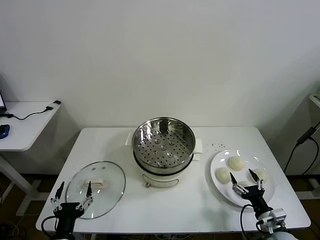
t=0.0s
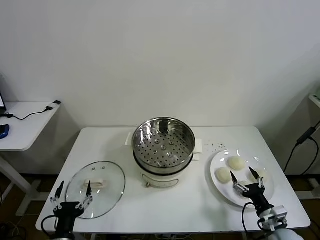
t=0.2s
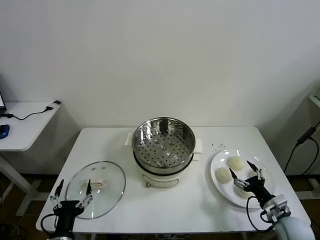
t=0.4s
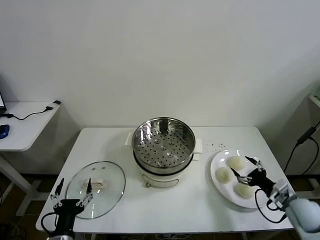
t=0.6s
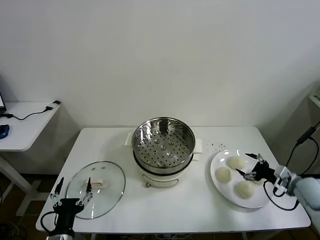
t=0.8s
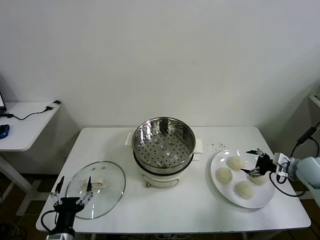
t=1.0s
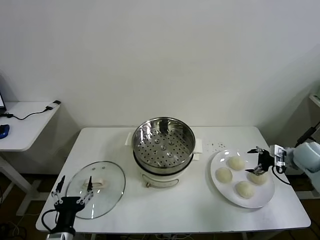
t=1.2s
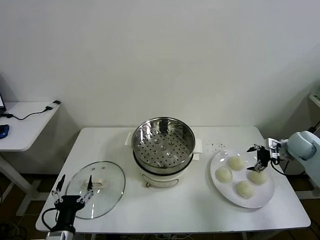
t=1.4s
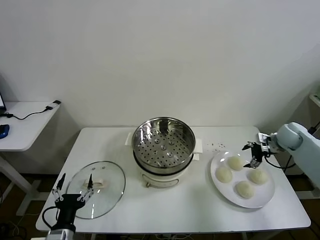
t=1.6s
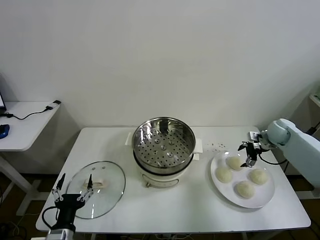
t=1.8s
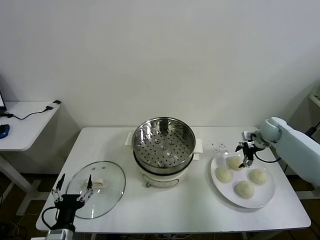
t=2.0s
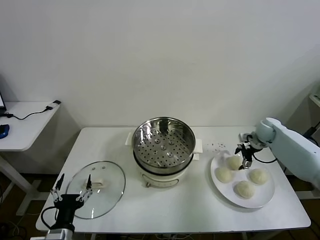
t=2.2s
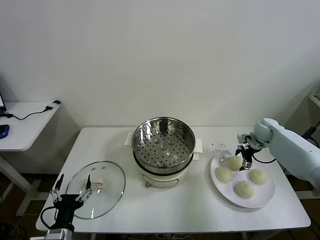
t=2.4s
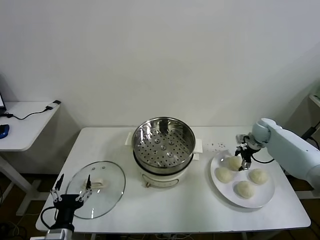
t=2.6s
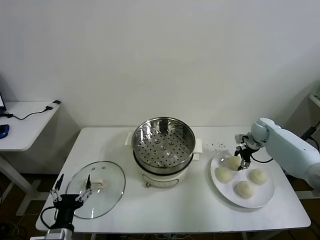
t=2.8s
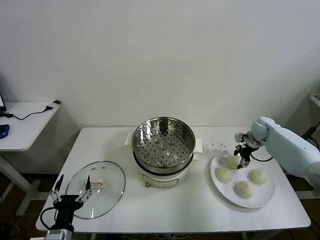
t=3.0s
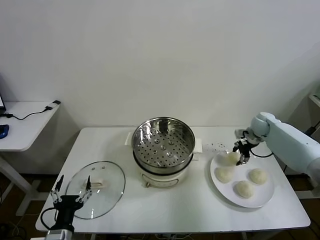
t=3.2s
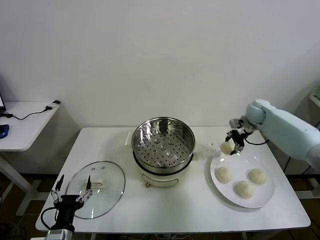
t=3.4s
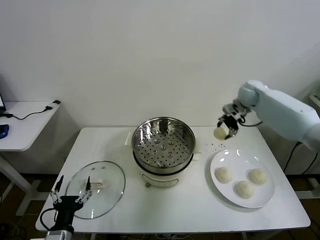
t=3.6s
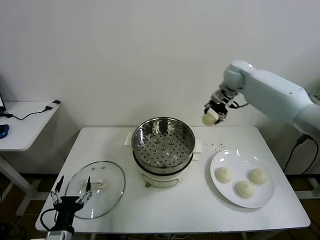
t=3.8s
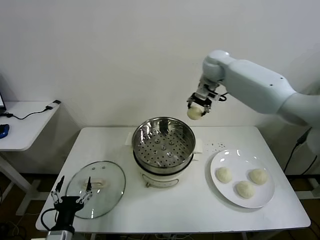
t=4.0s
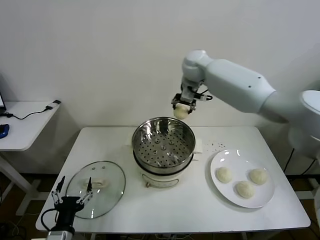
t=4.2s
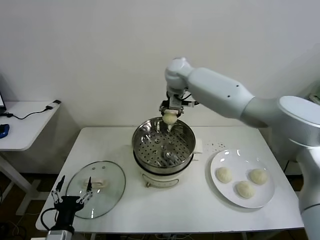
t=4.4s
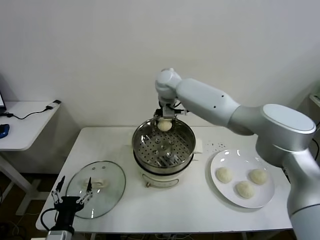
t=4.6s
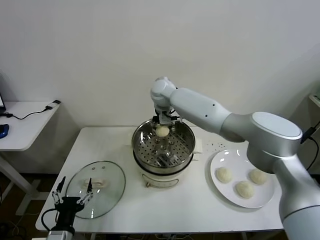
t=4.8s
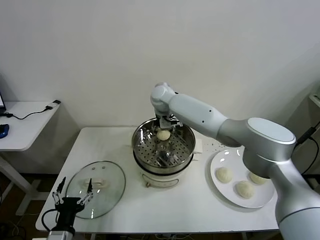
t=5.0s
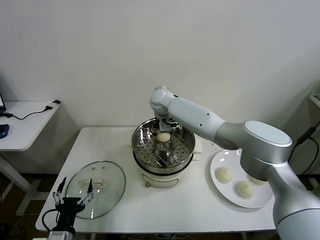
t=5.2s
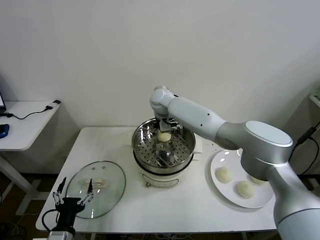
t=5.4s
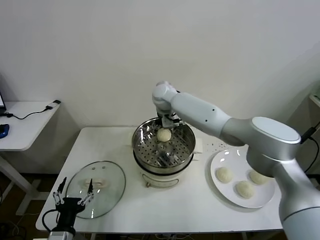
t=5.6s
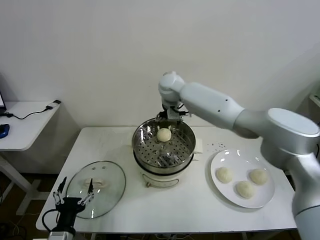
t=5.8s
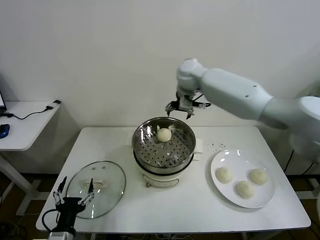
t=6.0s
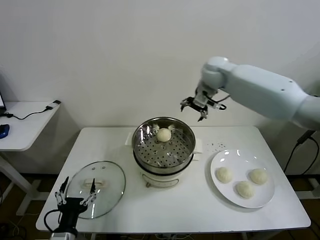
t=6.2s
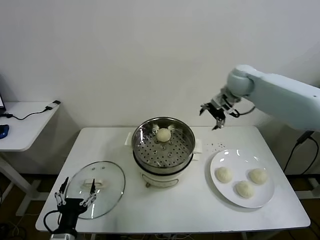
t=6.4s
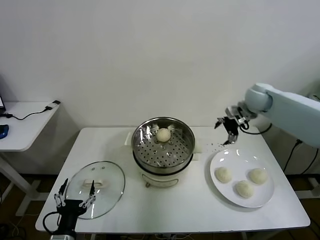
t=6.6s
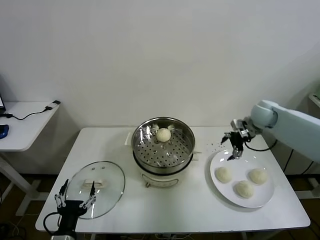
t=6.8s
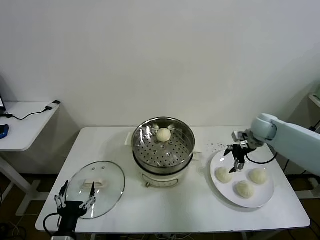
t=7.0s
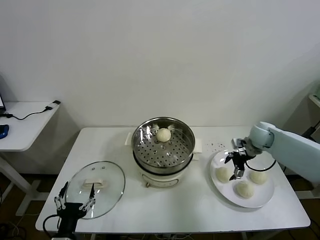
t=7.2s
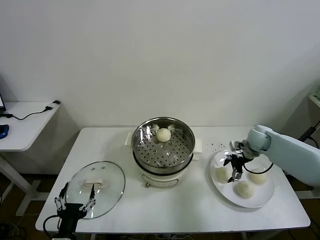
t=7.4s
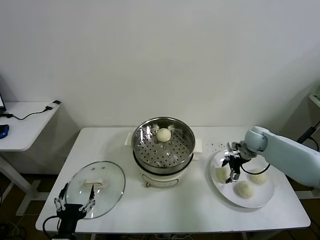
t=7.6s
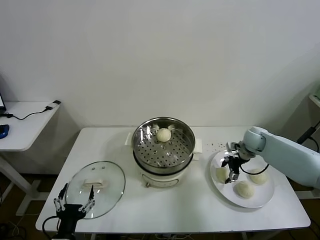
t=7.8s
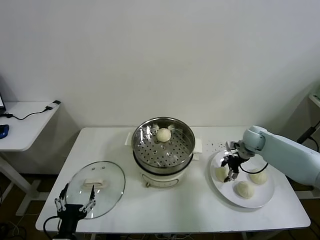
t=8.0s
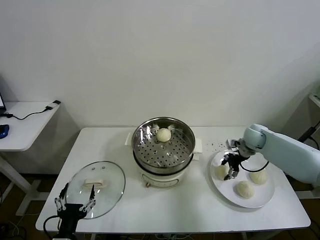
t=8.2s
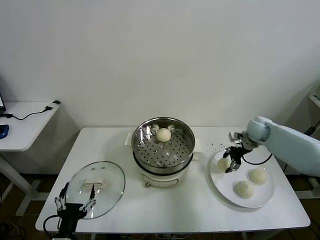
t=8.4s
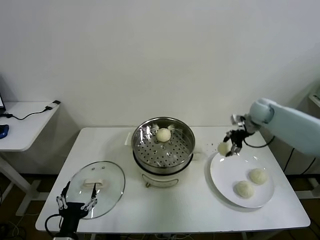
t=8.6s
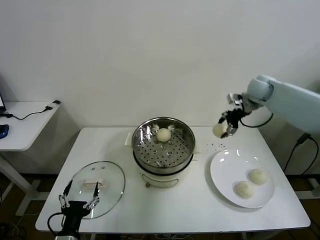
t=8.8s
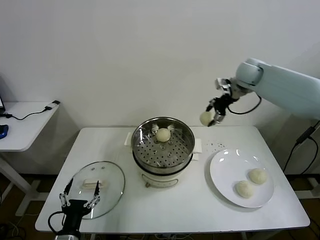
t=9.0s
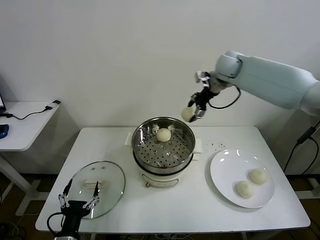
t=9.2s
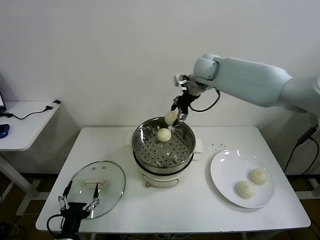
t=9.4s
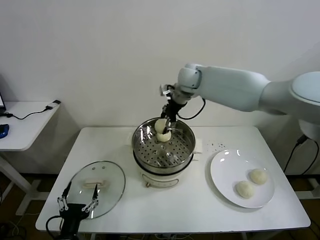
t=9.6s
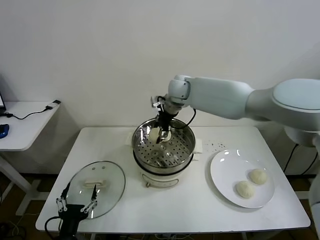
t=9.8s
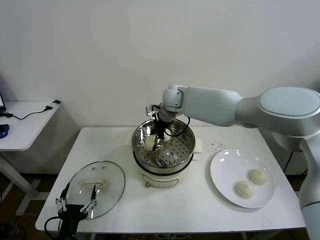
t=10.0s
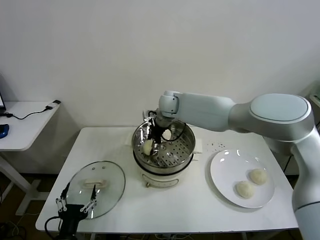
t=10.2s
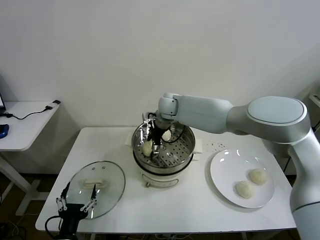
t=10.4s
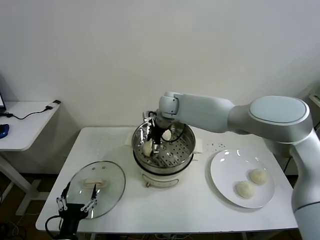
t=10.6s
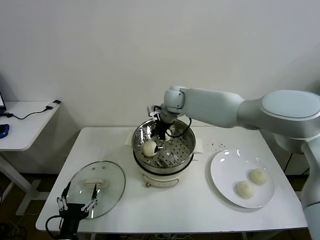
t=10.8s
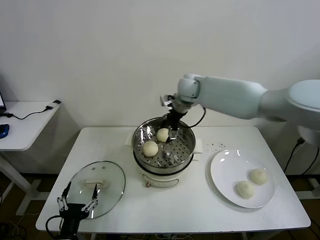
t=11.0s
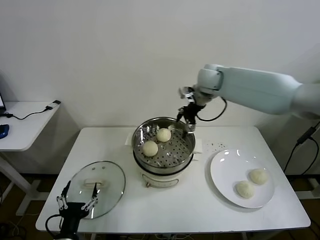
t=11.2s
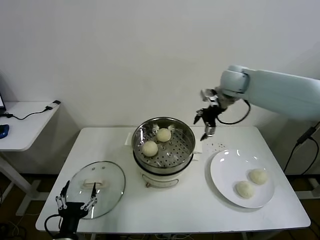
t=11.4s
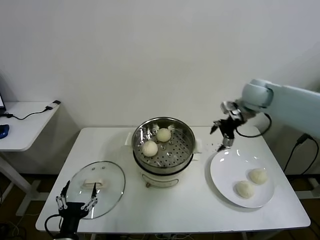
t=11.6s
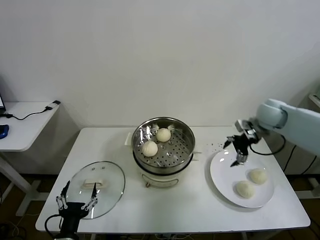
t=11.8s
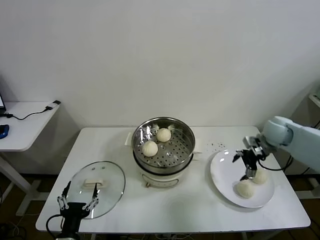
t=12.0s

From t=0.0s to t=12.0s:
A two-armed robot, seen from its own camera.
Task of the whole recording: take steamed baozi put them in steamer then cover it.
Step, from t=0.0s to t=3.0s: Grasp the baozi in the plate with right gripper.
Step, from t=3.2s to t=5.6s: Place the baozi on the steamer with right gripper.
Step, from t=5.8s to t=8.2s: Grasp the baozi in the plate with right gripper.
Step, from t=8.4s to t=10.8s: Place the baozi on the steamer with right gripper.
From t=1.6s to t=3.0s: The right gripper goes roughly 5 cm forward, and closes its fingers.
From t=3.0s to t=4.4s: The right gripper goes approximately 40 cm to the left and upward.
From t=4.4s to t=6.0s: The right gripper moves to the right, approximately 10 cm, and opens up.
From t=6.0s to t=7.6s: The right gripper moves downward and to the right, some 35 cm.
From t=7.6s to t=9.0s: The right gripper is displaced upward by about 25 cm, and closes up.
From t=9.0s to t=10.4s: The right gripper is displaced to the left and downward by approximately 30 cm, and opens its fingers.
From t=10.4s to t=12.0s: The right gripper moves to the right, about 40 cm.

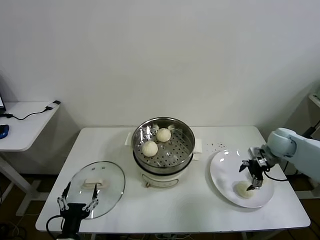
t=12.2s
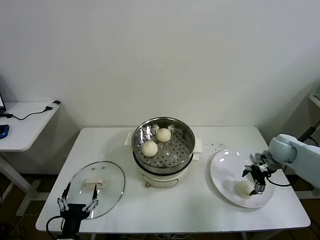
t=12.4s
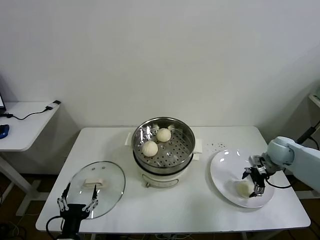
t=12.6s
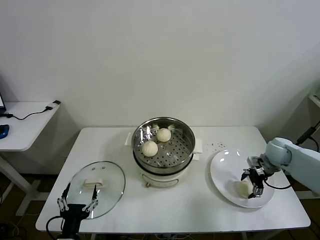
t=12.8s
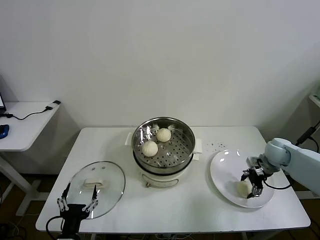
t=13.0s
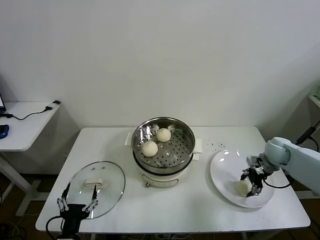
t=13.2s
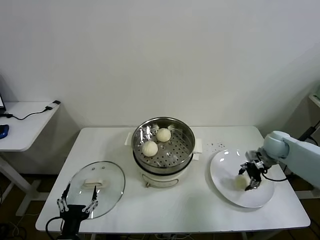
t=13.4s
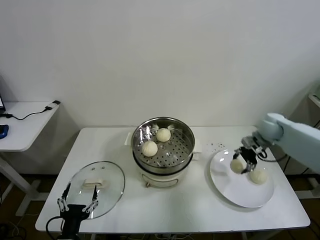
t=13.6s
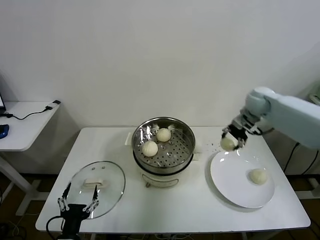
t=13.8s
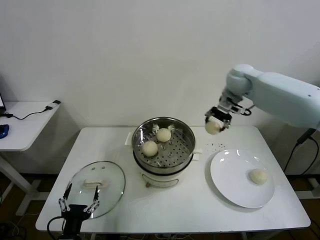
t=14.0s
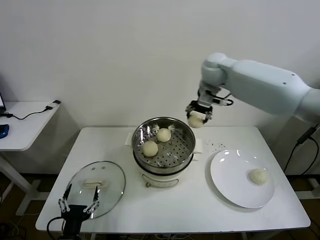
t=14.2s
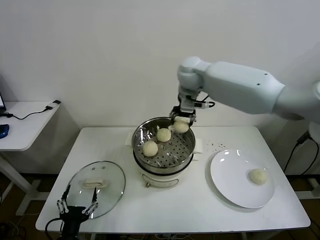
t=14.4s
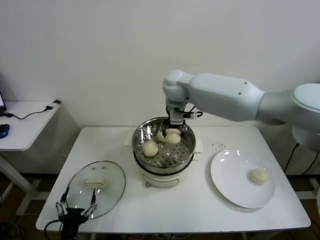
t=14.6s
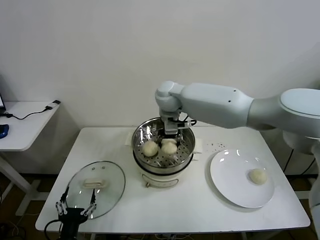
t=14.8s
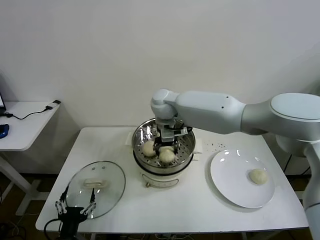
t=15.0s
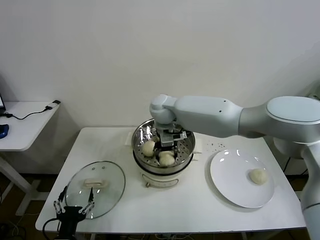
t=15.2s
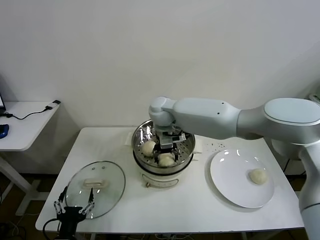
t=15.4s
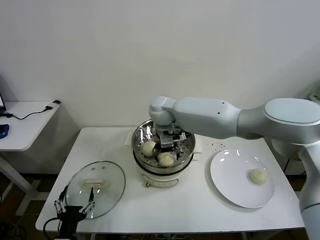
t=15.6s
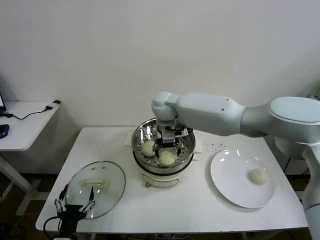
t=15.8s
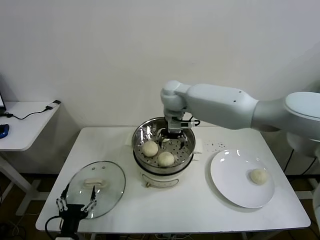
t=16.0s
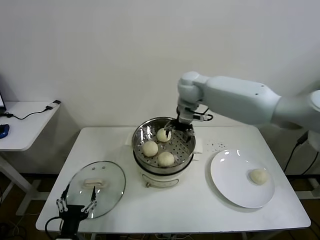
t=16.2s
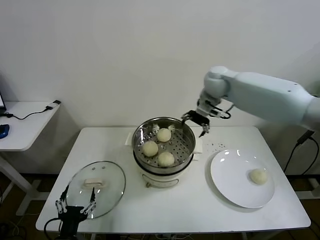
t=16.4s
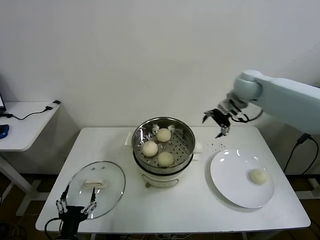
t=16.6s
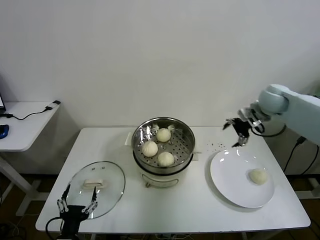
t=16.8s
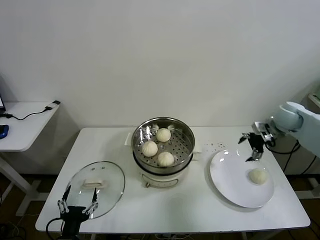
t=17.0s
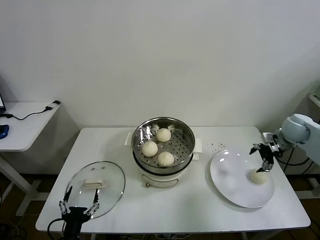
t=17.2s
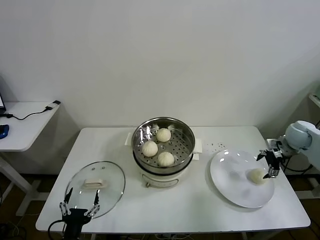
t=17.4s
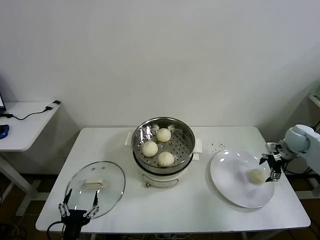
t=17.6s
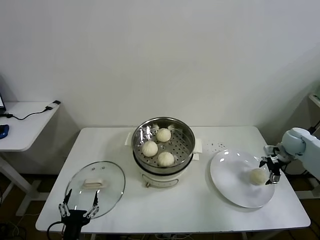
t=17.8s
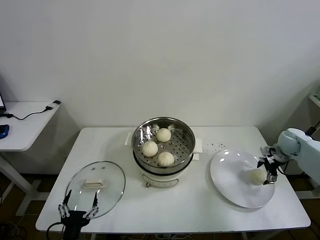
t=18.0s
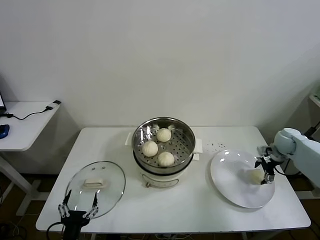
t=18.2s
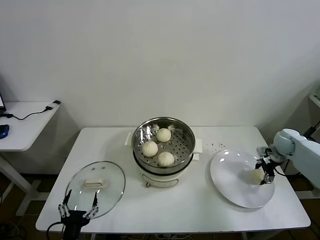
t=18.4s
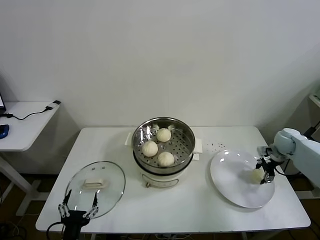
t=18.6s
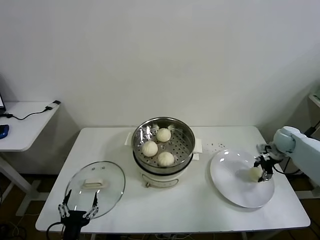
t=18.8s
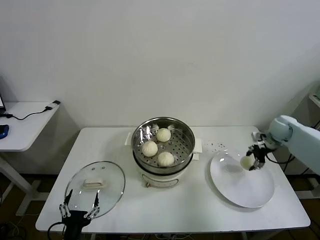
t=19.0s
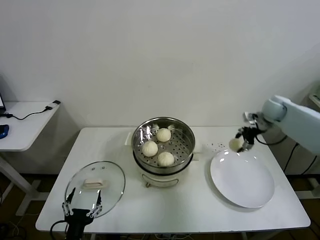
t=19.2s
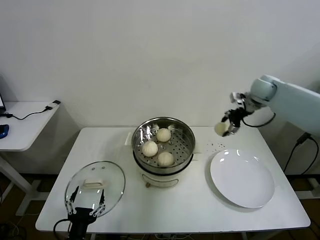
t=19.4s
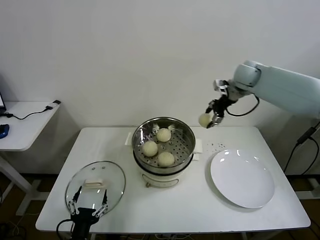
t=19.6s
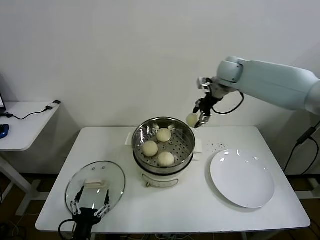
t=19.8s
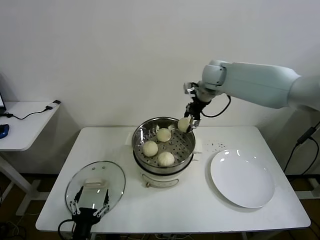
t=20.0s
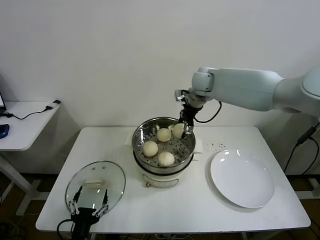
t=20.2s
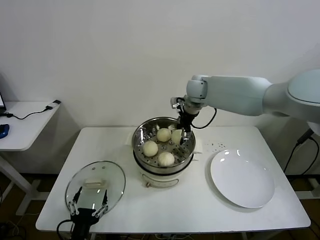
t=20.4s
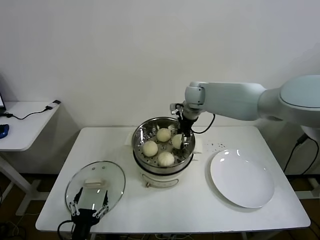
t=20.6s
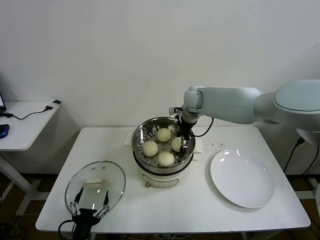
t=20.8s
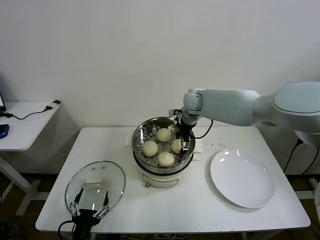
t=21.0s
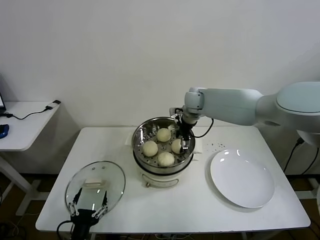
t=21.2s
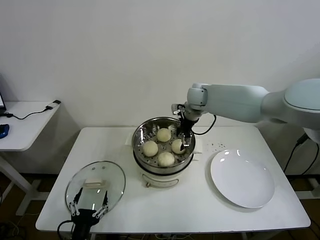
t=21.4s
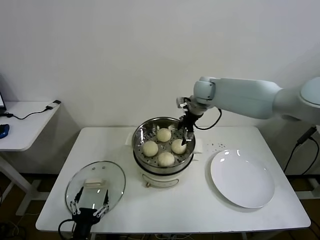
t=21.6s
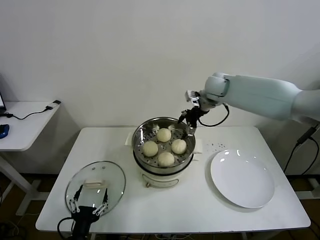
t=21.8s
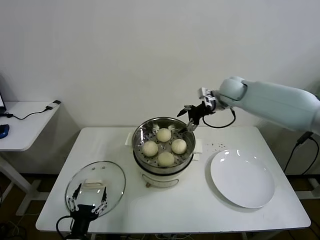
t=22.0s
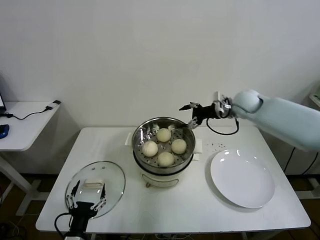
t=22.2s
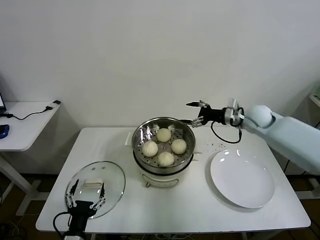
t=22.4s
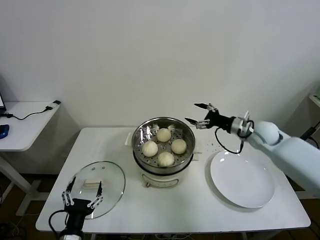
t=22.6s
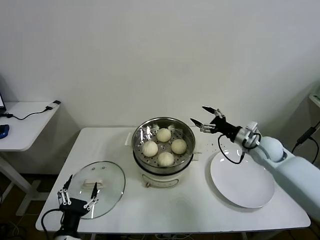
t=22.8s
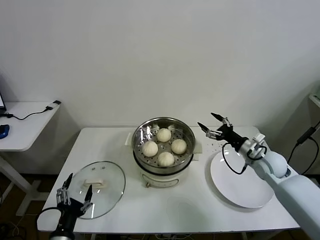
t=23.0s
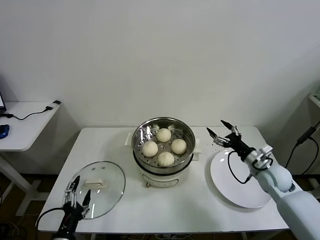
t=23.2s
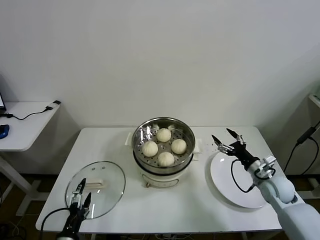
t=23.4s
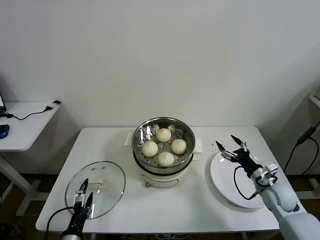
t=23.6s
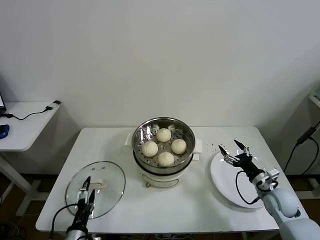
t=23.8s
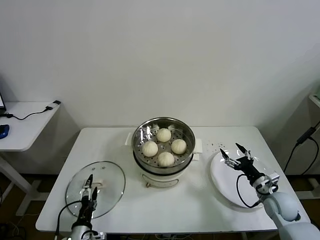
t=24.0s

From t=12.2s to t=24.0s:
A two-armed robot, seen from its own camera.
Task of the whole recording: take steamed baozi put them in steamer then cover it.
Step, from t=13.6s to t=15.6s: Place the baozi on the steamer with right gripper.
Step, from t=15.8s to t=18.6s: Grasp the baozi in the plate with right gripper.
Step, from t=18.8s to t=21.6s: Place the baozi on the steamer with right gripper.
From t=12.2s to t=13.6s: The right gripper is displaced forward and upward by roughly 10 cm, and closes.
From t=13.6s to t=15.2s: The right gripper goes approximately 40 cm to the left.
From t=15.2s to t=16.6s: The right gripper shifts roughly 30 cm to the right, and opens up.
From t=16.6s to t=18.2s: The right gripper heads downward and to the right, covering about 30 cm.
From t=18.2s to t=19.6s: The right gripper shifts about 30 cm upward, to the left and forward, and closes up.
From t=19.6s to t=21.0s: The right gripper travels to the left and downward by some 20 cm, and opens.
From t=21.0s to t=22.6s: The right gripper is displaced to the right and backward by roughly 25 cm.
From t=22.6s to t=24.0s: The left gripper shifts about 10 cm downward; the right gripper is displaced backward and downward by approximately 25 cm.
